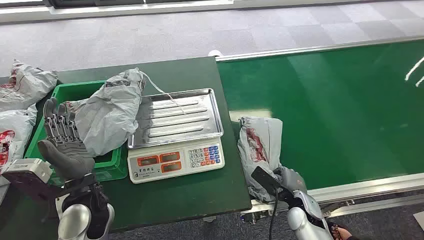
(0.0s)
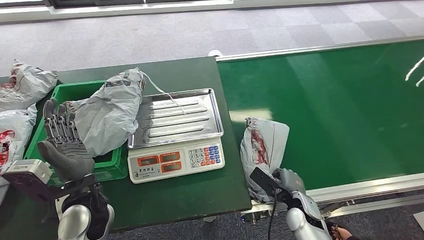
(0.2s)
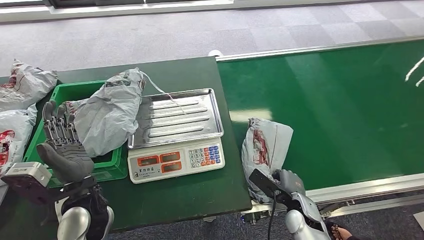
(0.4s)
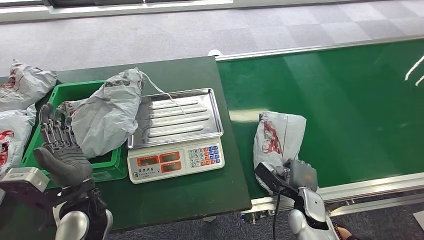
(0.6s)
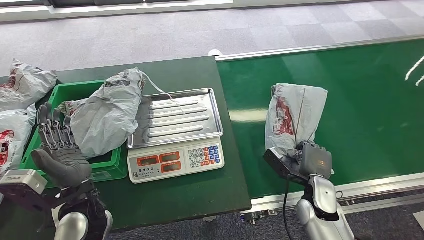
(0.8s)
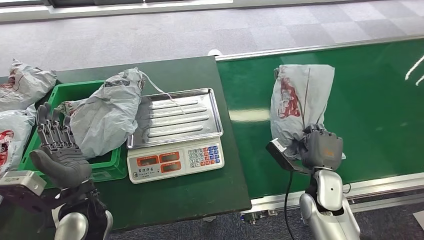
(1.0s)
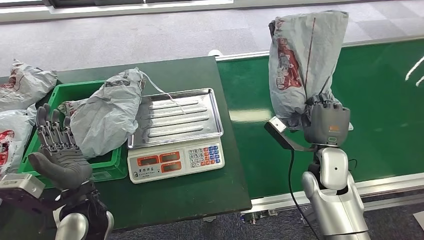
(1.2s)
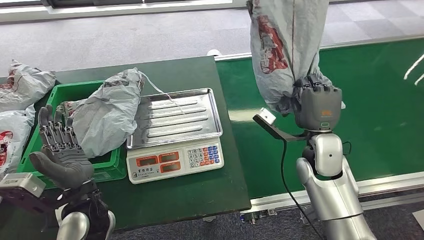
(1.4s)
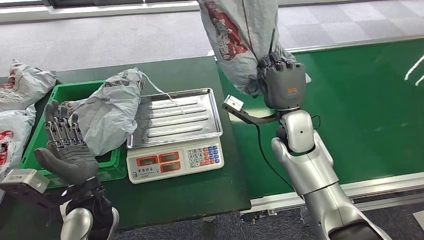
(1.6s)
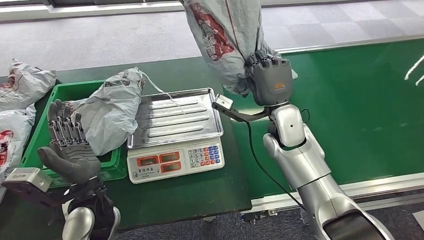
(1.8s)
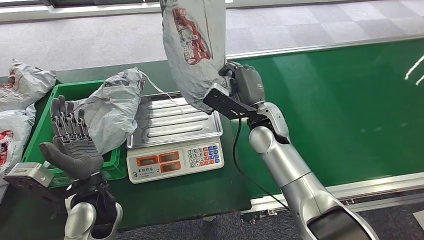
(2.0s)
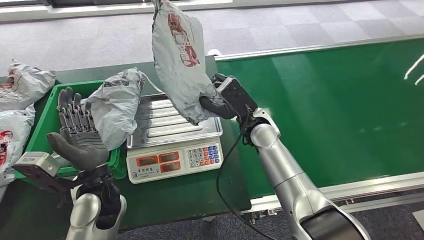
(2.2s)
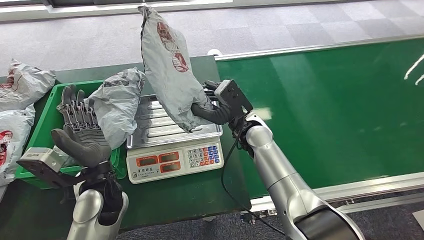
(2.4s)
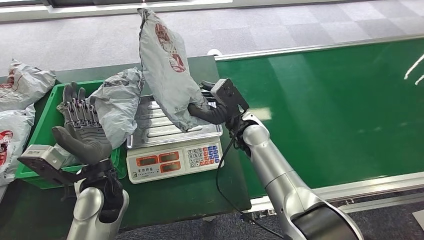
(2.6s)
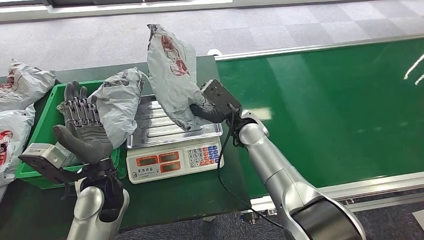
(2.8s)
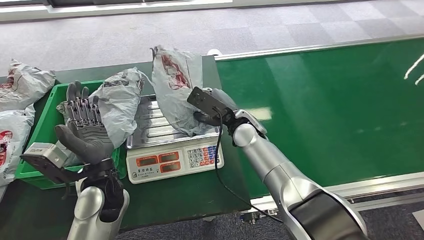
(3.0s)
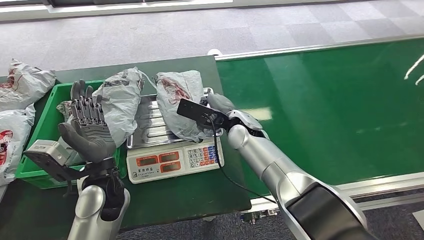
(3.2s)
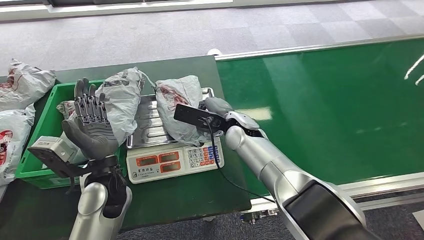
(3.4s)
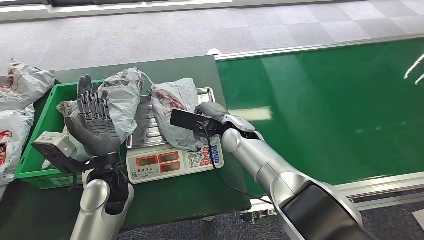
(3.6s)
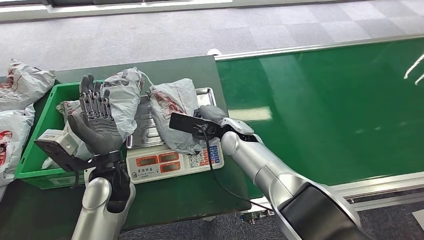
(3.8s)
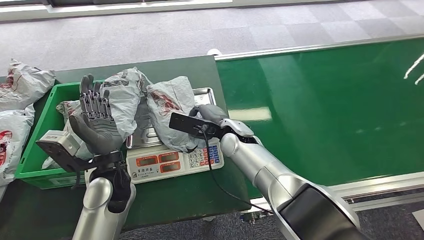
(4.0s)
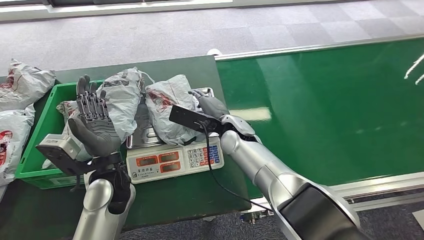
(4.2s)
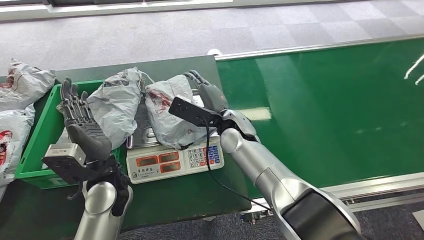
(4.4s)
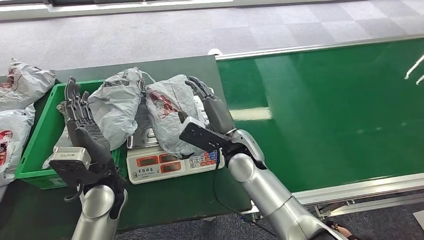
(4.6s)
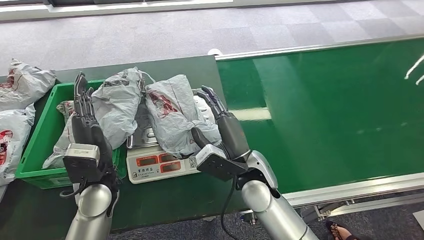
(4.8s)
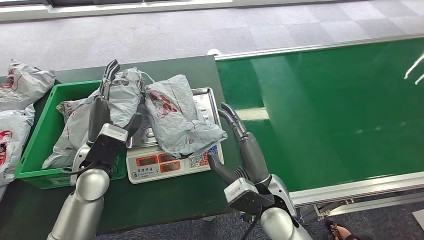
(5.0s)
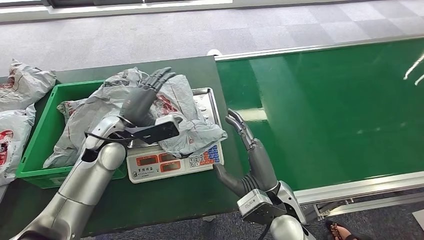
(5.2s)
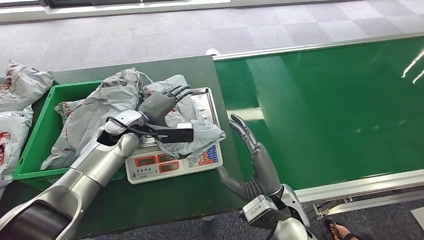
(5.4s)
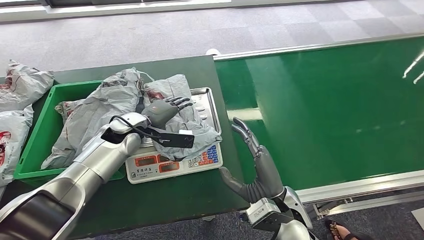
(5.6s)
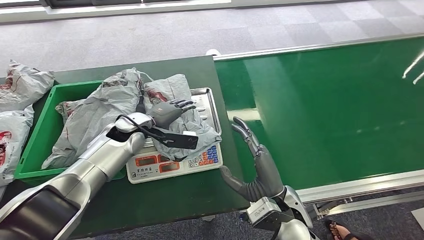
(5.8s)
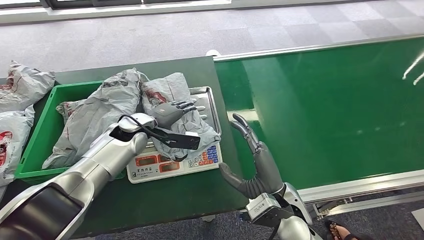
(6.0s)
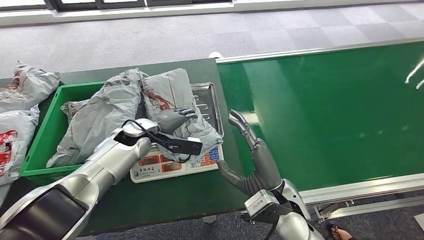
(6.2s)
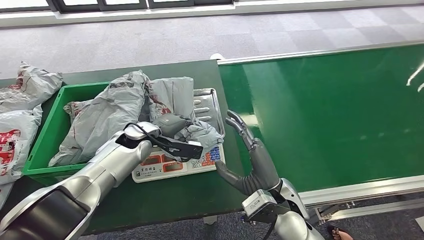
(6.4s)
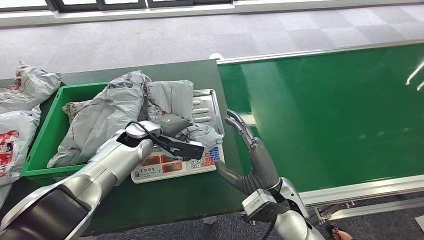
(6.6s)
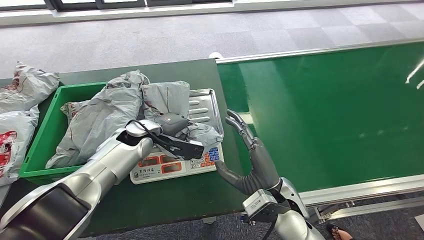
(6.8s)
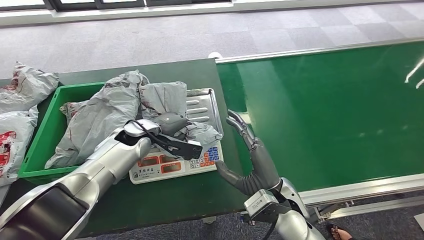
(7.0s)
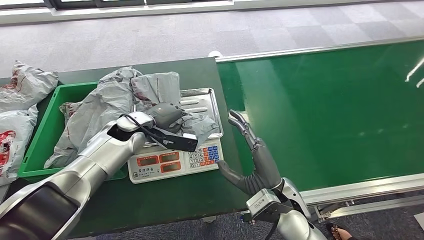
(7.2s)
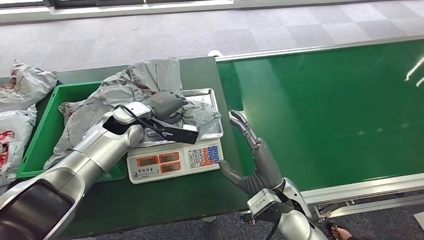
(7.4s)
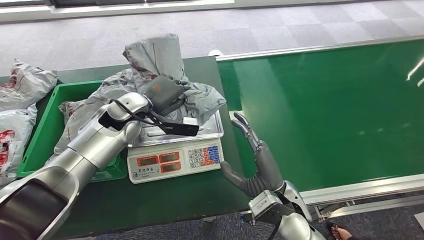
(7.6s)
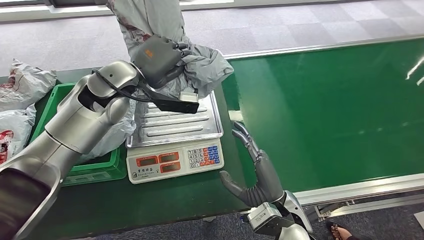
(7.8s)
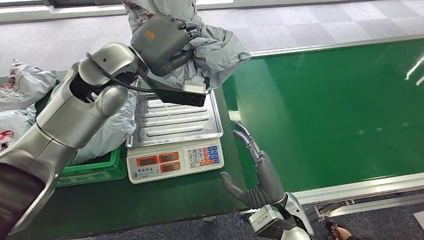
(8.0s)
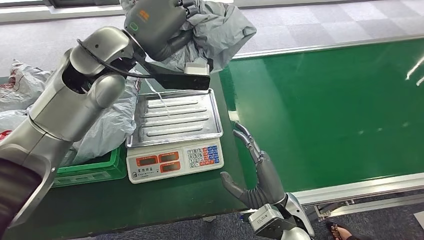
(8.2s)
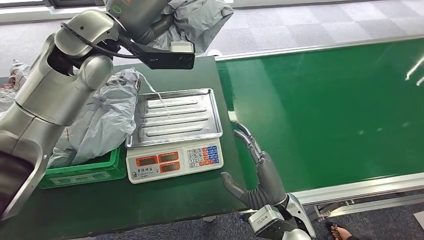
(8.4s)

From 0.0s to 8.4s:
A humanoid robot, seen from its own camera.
Step, from 0.0s to 1.4s: Pick up the package from the conveyor belt.
Step, from 1.6s to 5.0s: Place the package onto the inbound machine.
Step, from 5.2s to 7.6s: Pick up the package from the inbound machine.
Step, from 7.8s to 8.4s: Place the package into the parcel locker.
